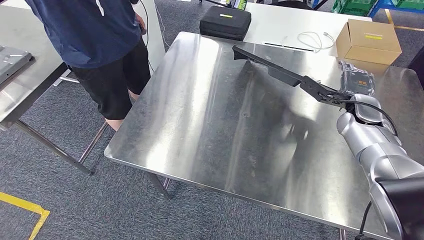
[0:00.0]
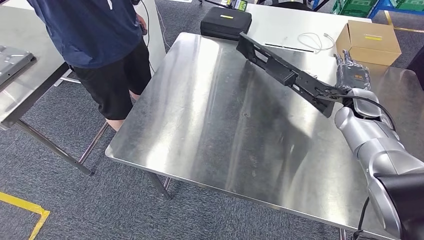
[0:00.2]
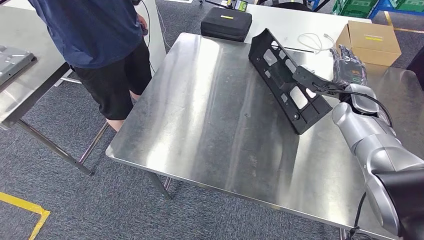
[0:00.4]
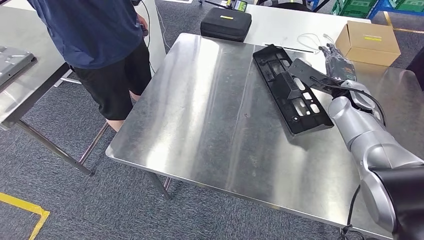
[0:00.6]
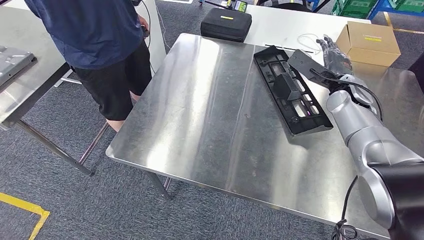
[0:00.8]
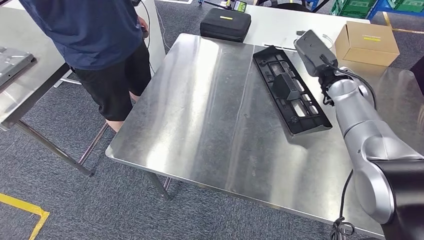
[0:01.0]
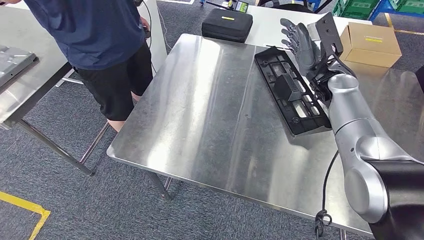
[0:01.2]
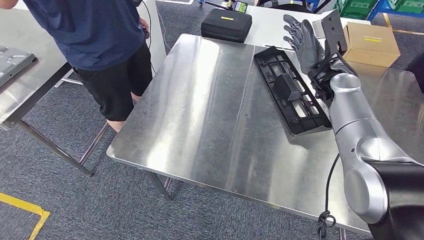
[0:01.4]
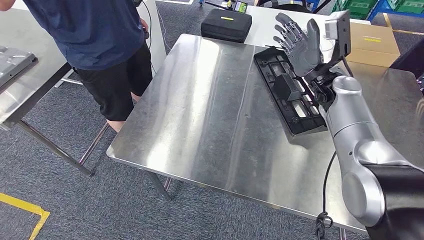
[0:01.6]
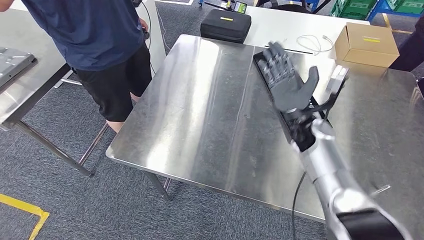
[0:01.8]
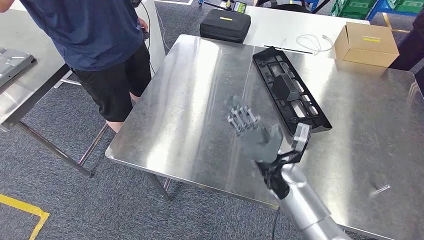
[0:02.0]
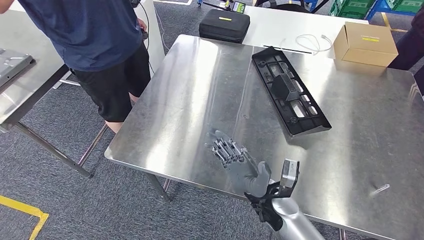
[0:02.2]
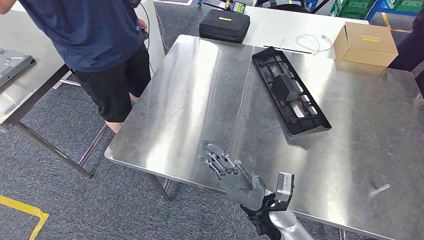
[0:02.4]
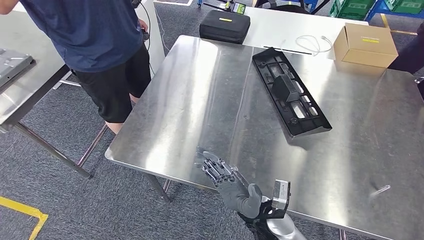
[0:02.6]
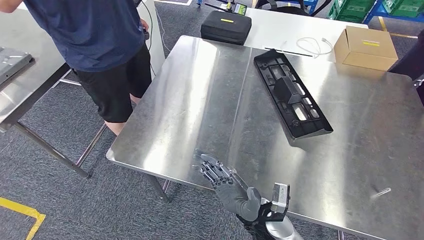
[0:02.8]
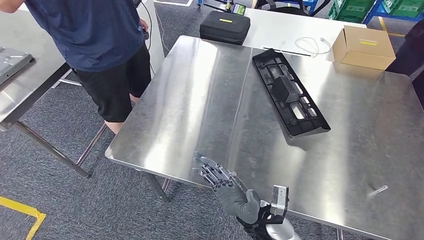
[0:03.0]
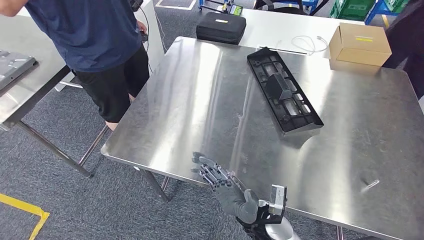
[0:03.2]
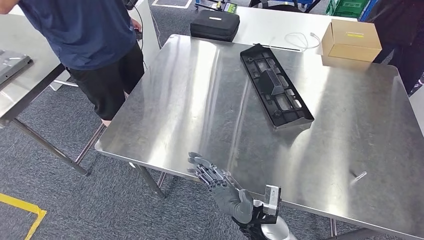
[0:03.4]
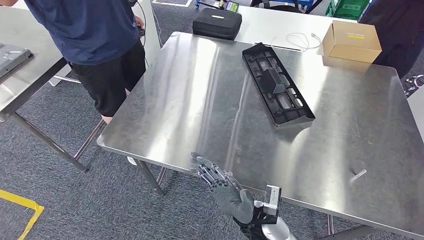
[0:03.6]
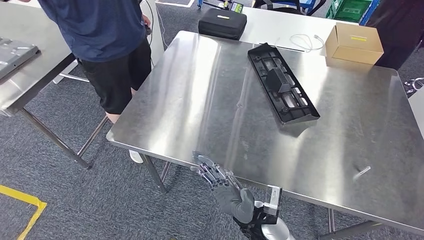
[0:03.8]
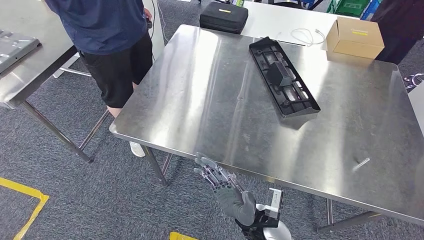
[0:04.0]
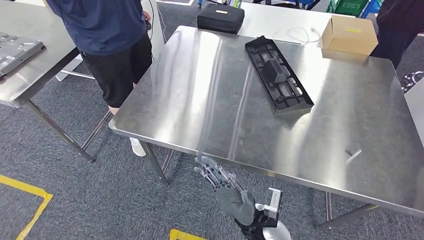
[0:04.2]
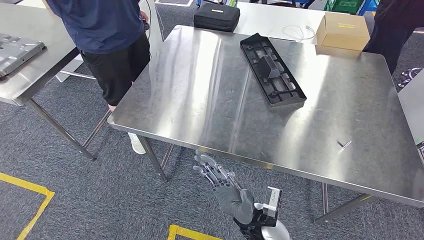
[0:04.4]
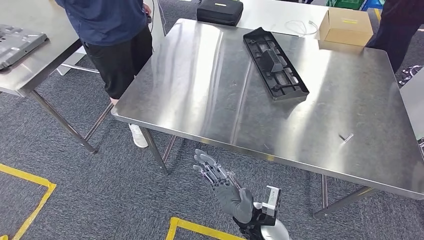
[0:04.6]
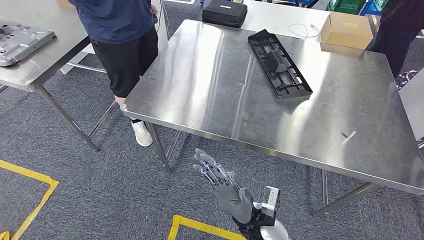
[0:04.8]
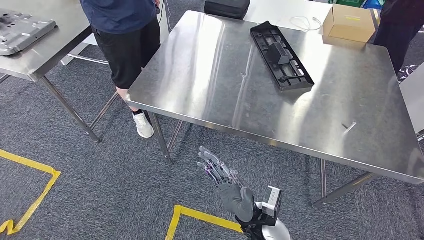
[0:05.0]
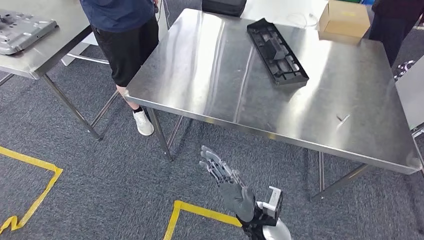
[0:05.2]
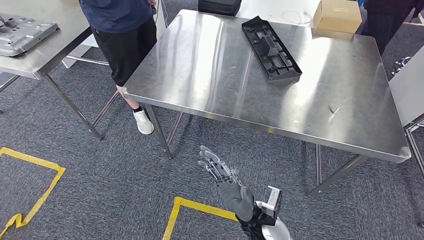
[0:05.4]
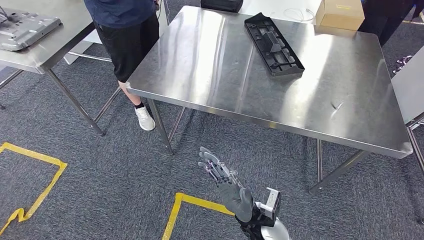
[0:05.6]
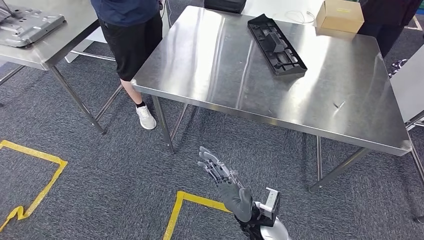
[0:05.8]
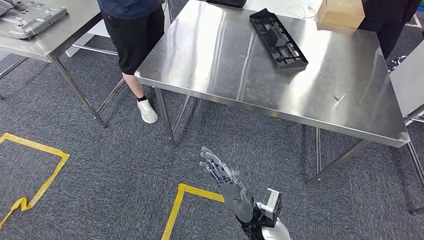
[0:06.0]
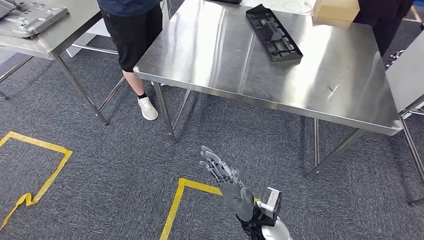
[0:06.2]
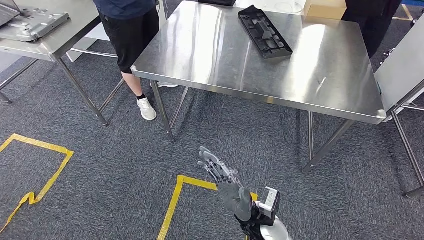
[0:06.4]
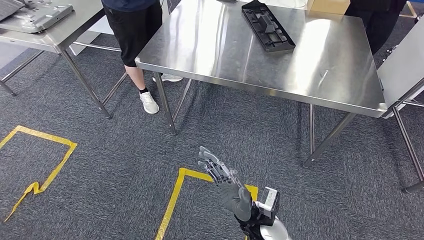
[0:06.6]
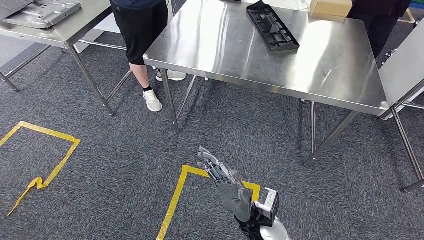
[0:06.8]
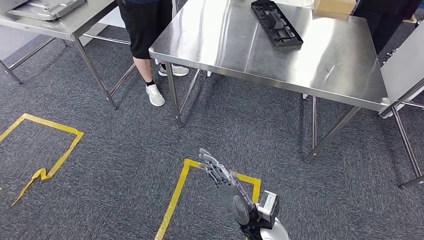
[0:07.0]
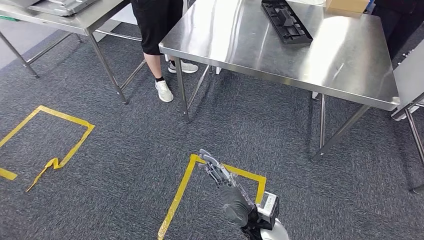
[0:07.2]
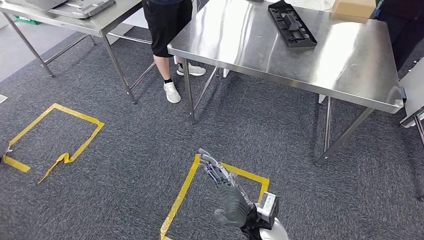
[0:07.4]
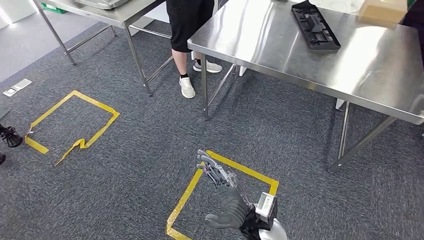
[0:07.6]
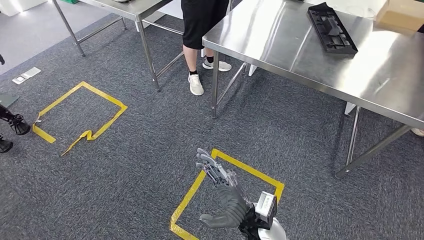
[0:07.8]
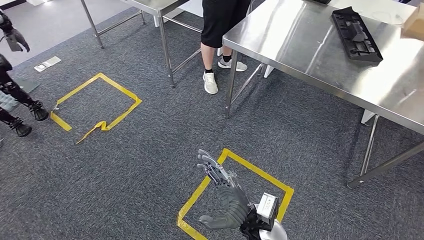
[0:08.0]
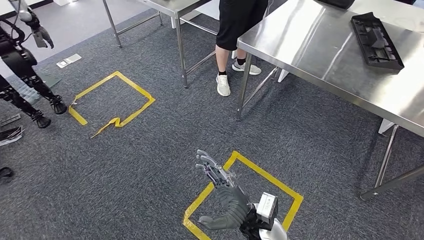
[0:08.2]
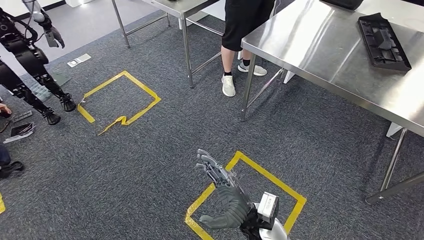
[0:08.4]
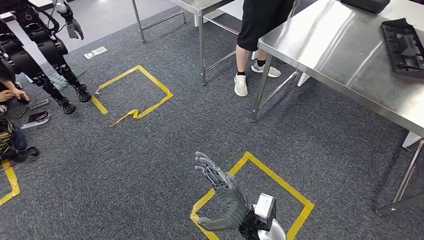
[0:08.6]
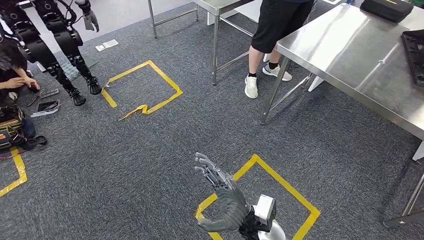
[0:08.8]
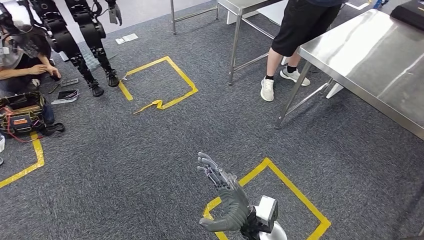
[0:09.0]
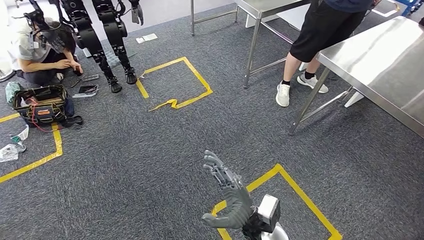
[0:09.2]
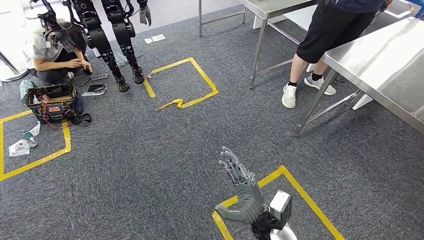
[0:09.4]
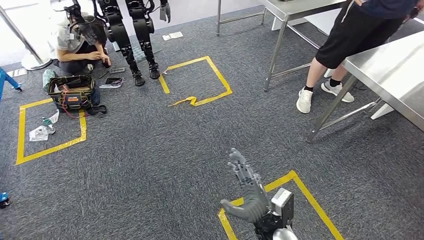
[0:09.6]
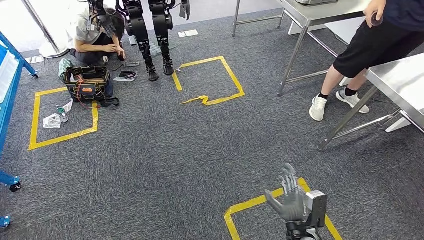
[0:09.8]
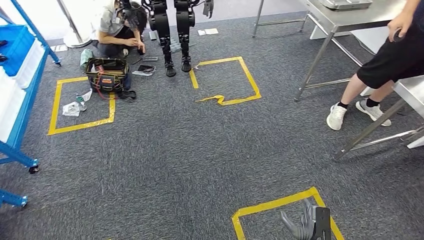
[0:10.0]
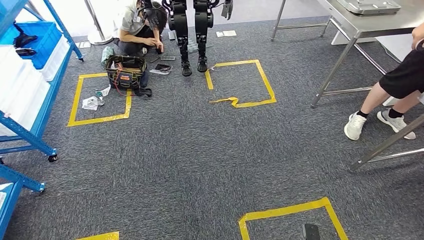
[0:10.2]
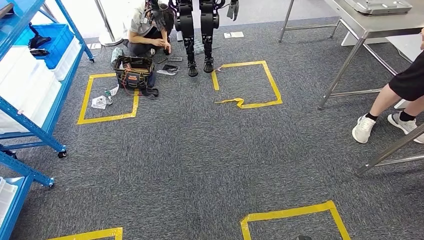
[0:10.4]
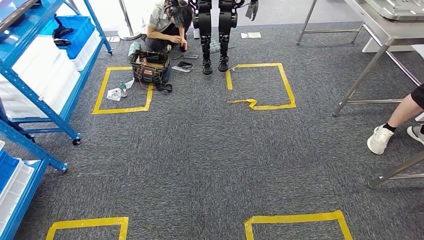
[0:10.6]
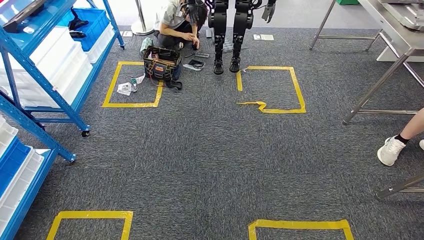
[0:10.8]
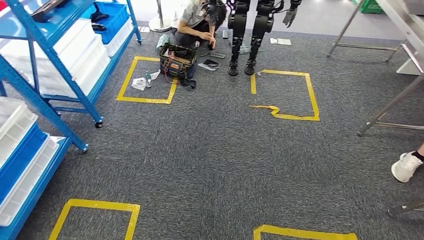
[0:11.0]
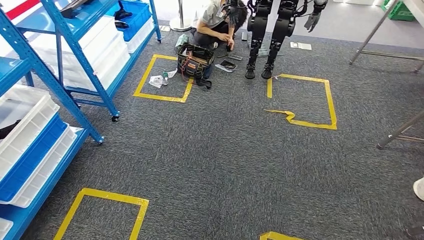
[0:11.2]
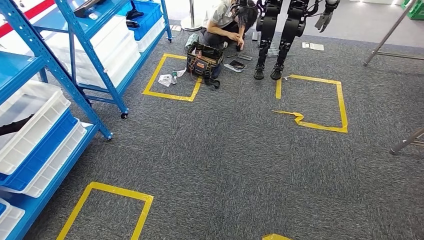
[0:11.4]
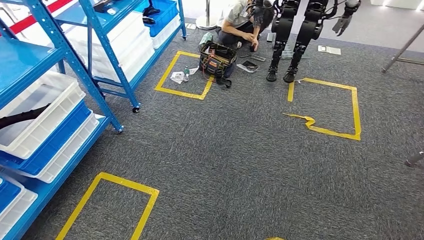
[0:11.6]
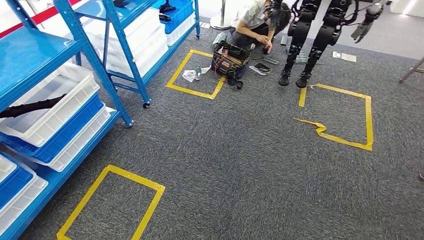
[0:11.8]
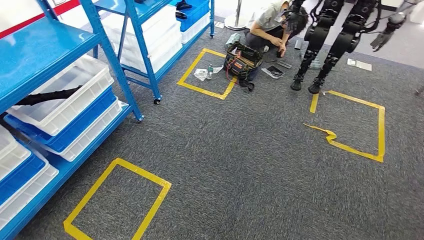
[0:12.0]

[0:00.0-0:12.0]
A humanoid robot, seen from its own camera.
Step, 0:00.0 to 0:03.6: Insert the large material into the corresponding slot on the workbench.

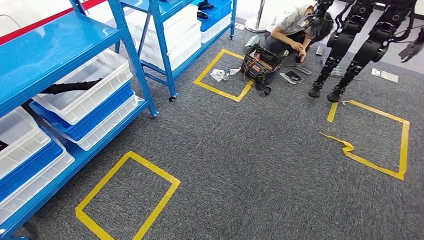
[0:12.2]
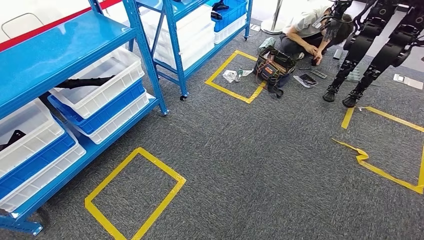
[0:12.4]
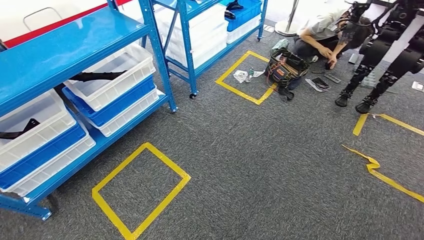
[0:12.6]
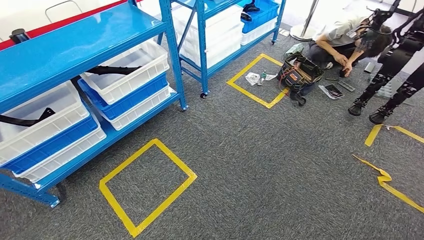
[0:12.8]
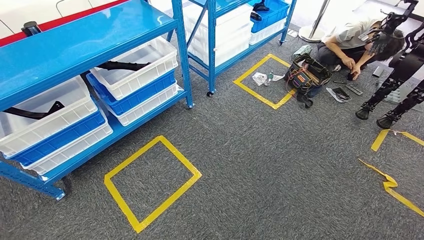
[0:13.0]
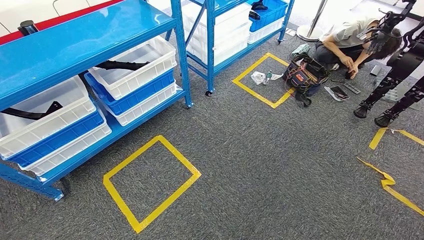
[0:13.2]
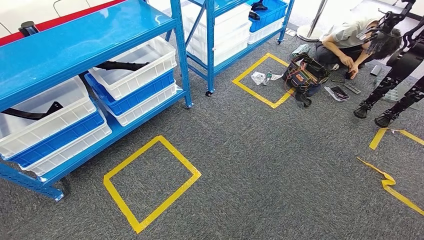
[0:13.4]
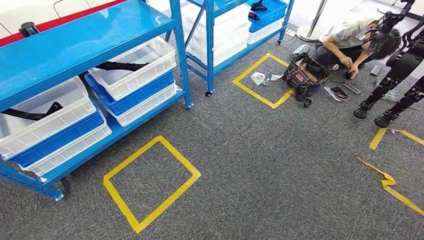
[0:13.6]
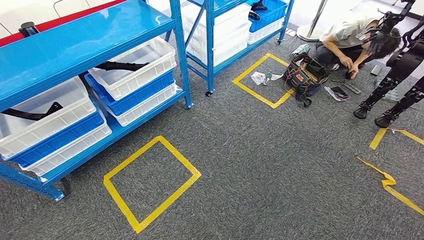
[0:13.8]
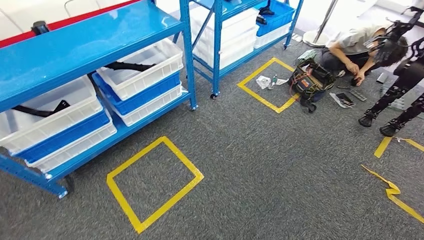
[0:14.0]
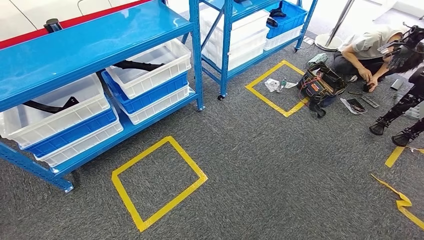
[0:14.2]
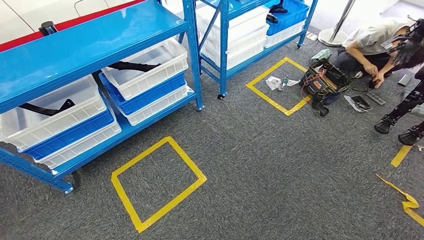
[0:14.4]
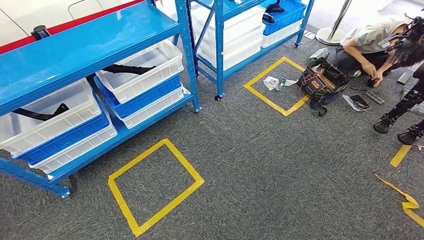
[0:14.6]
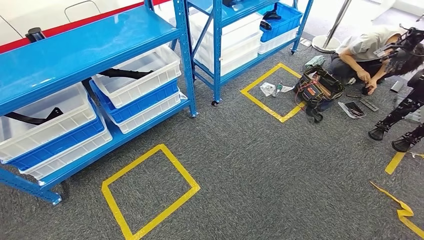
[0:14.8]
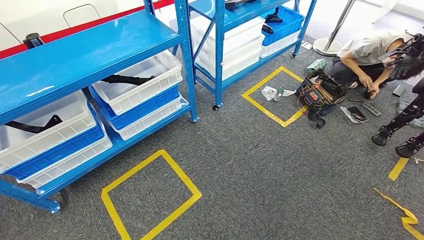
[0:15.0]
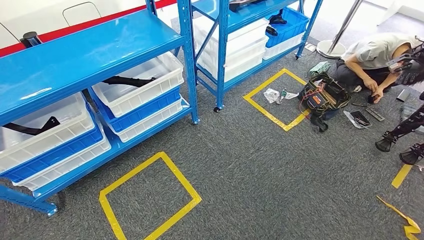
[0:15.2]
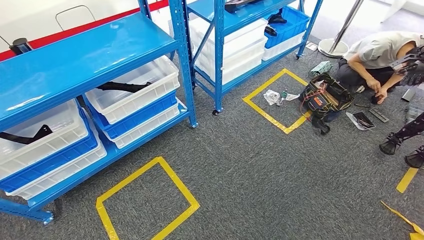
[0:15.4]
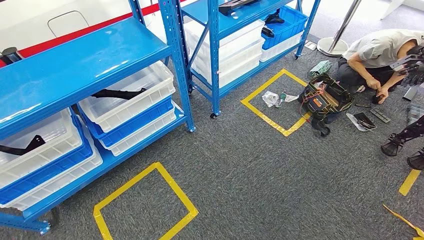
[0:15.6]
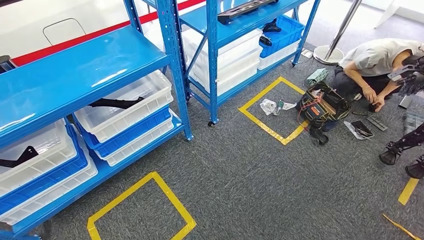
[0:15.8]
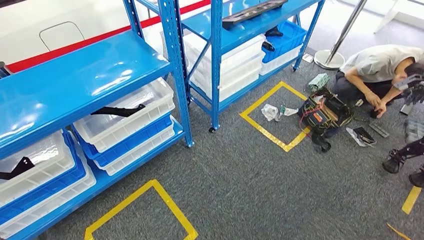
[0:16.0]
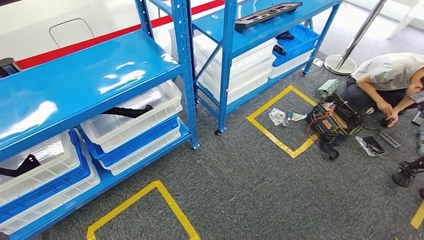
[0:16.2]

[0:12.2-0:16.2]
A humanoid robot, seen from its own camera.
Step, 0:12.2 to 0:16.2: Return to the initial position at the shelf.
